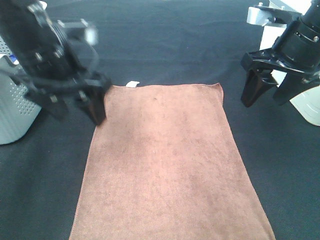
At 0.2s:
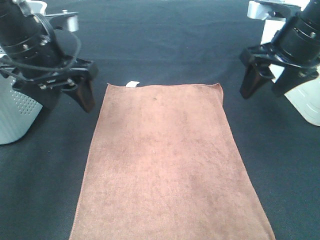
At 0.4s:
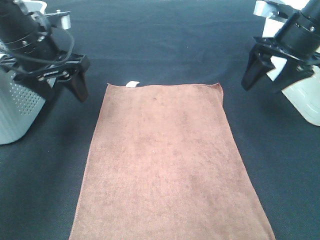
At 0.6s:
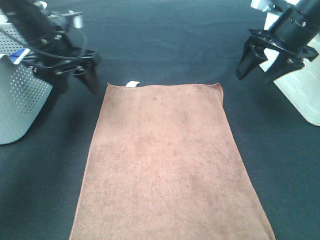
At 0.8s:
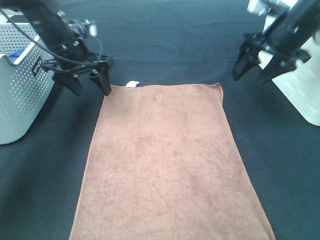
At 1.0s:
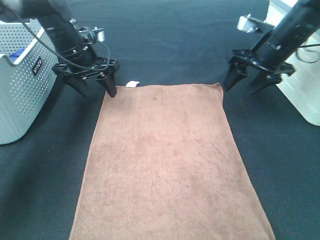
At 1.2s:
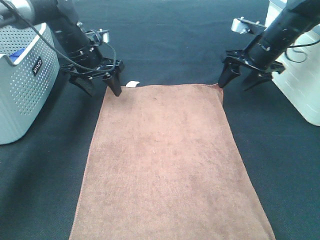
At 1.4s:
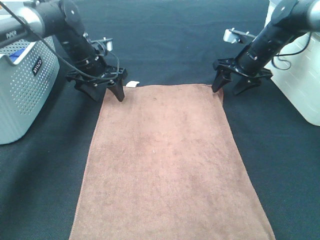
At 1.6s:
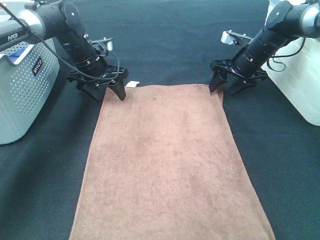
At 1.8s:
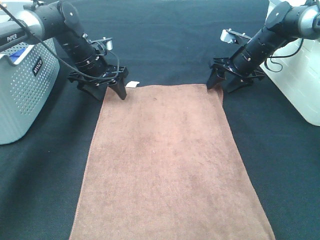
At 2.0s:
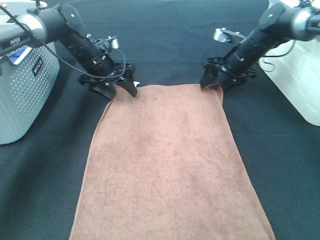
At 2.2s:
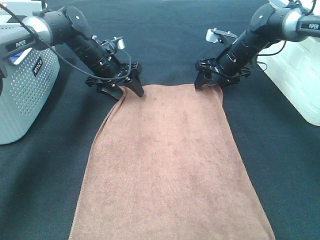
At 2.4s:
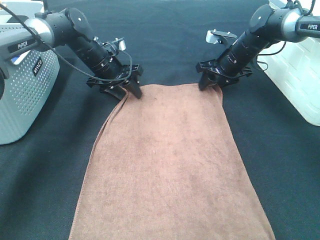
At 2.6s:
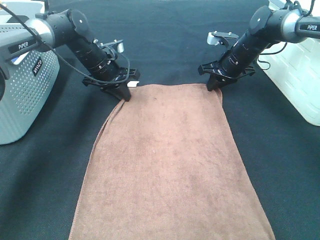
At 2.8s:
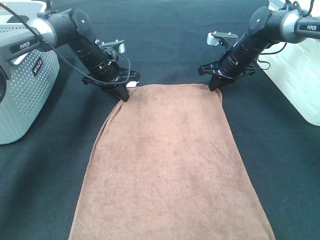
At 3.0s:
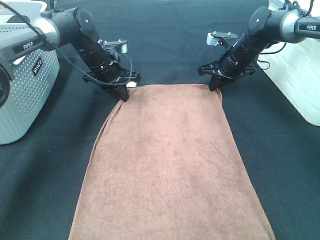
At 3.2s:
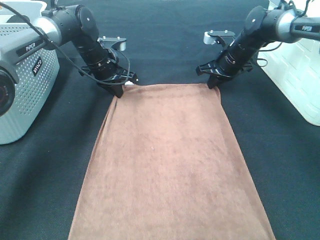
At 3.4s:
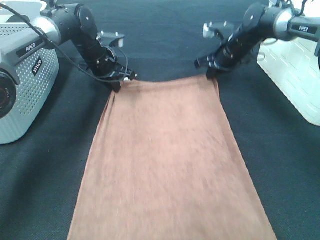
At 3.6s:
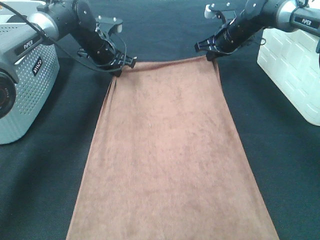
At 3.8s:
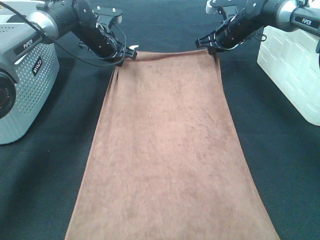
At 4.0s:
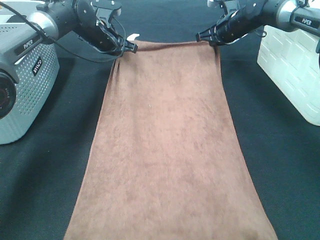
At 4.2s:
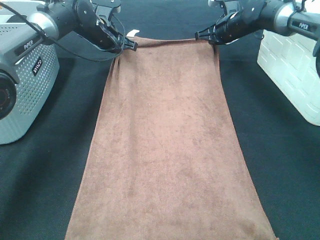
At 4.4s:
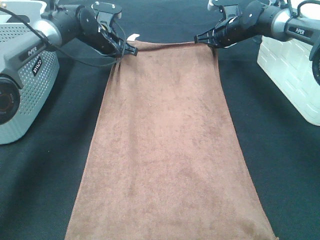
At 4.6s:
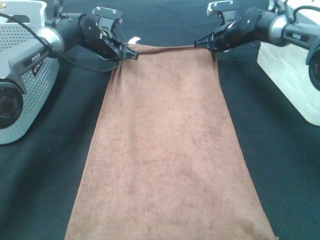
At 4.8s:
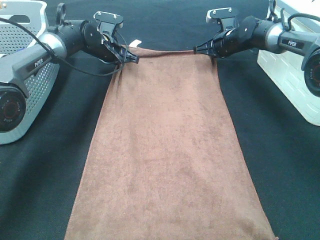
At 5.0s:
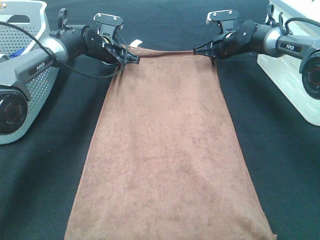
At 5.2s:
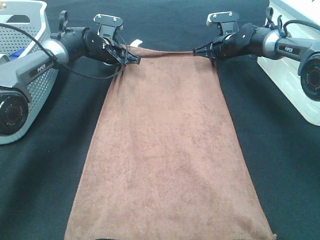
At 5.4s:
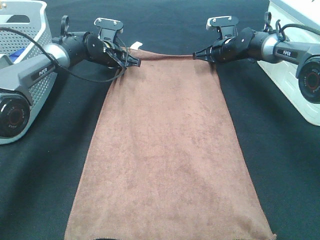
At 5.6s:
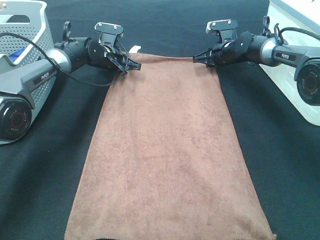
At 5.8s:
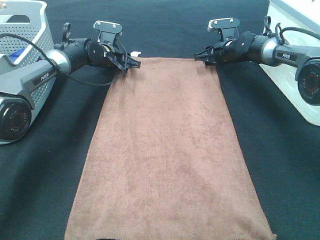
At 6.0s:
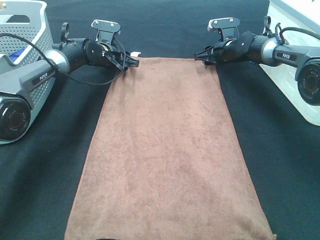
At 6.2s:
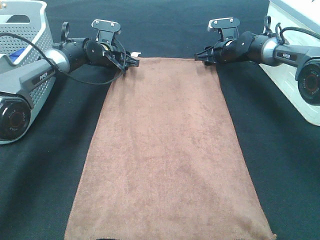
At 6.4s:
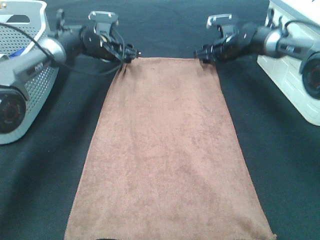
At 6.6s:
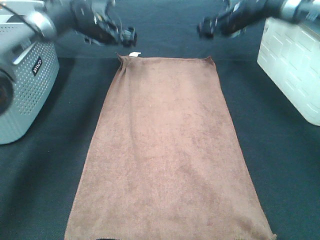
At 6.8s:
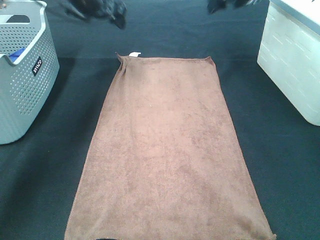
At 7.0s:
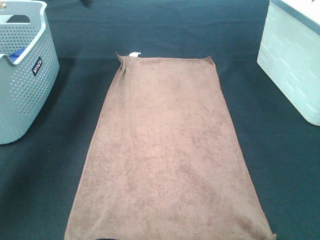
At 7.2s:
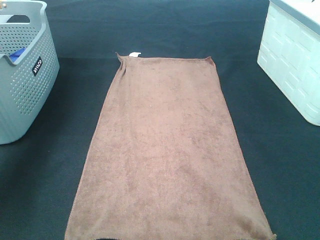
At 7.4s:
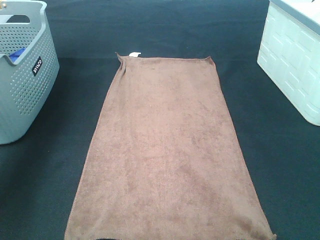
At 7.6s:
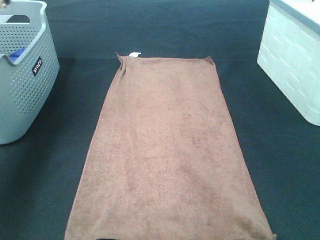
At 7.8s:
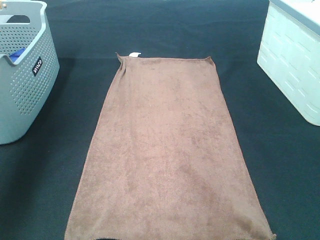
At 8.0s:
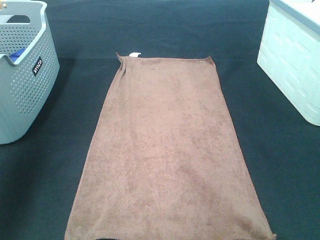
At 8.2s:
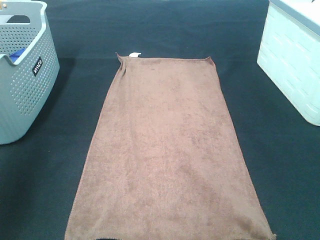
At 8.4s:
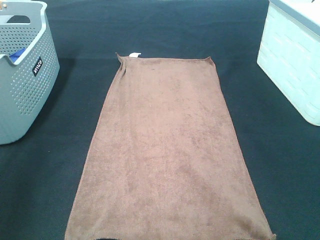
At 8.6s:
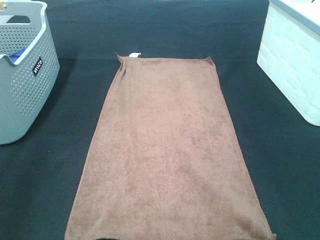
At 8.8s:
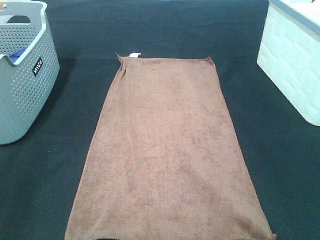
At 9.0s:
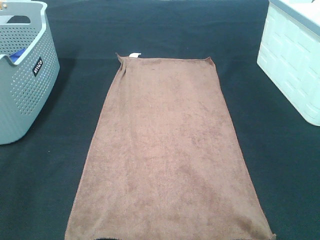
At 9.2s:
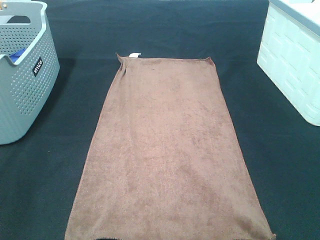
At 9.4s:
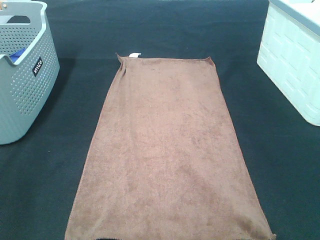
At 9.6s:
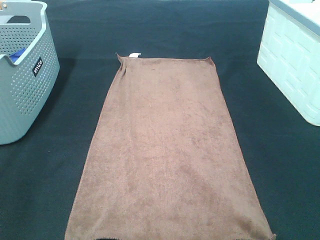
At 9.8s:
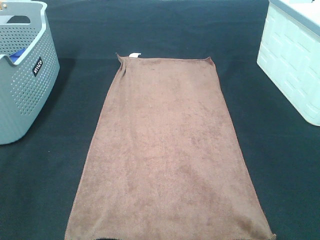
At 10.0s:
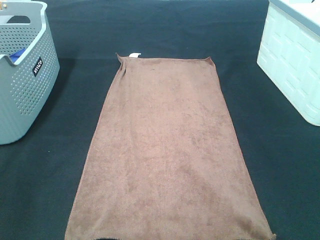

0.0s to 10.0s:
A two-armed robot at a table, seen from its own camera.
Task of the whole recording: Remove the towel and place it.
0.0s to 1.4s: The grippers both shift forward and downward by some 25 cm.
1.4s to 2.8s: The right gripper moves roughly 5 cm, and closes its fingers. Meanwhile the left gripper closes.
2.8s to 4.2s: The grippers both shift forward and upward by approximately 10 cm.
4.2s to 5.8s: The two grippers go roughly 5 cm downward. The left gripper opens its fingers. The right gripper opens its fingers.
5.8s to 7.2s: The left gripper heads upward and to the left, covering approximately 35 cm, and opens its fingers. The right gripper heads upward and backward, covering some 35 cm.
7.2s to 8.6s: The left gripper moves backward, about 50 cm.

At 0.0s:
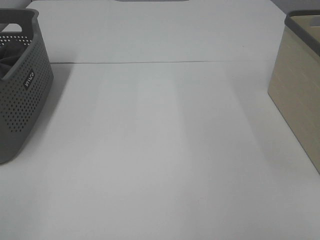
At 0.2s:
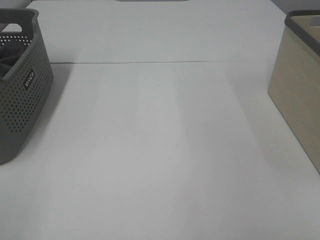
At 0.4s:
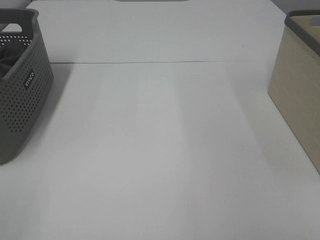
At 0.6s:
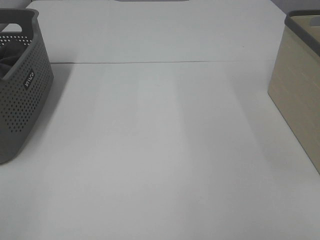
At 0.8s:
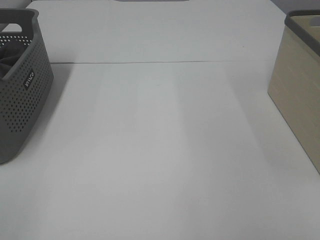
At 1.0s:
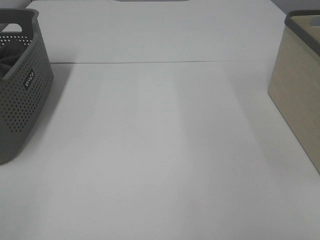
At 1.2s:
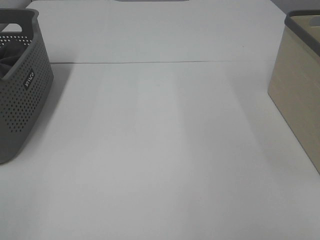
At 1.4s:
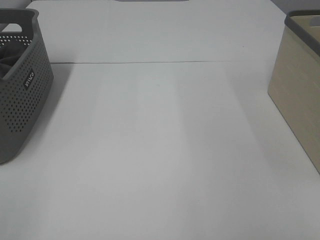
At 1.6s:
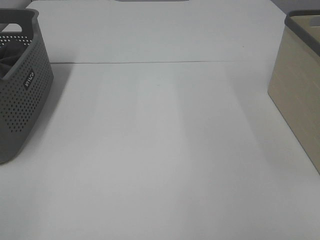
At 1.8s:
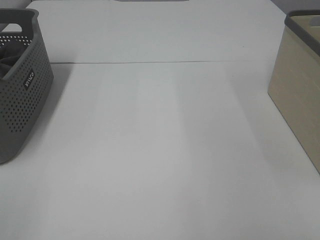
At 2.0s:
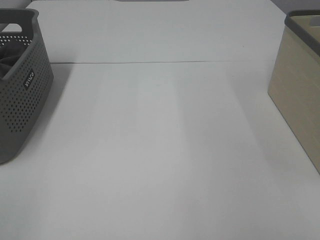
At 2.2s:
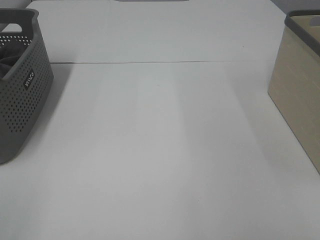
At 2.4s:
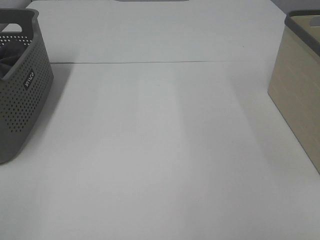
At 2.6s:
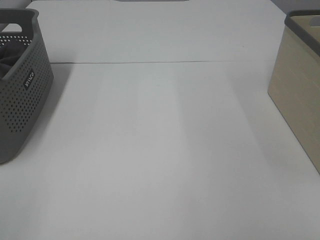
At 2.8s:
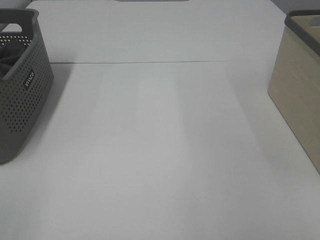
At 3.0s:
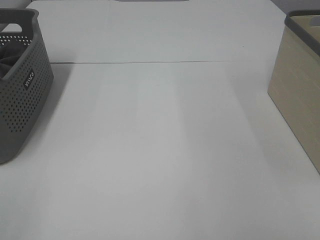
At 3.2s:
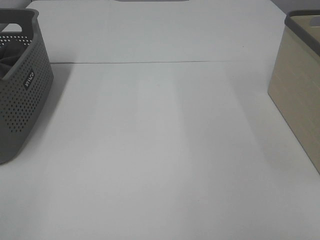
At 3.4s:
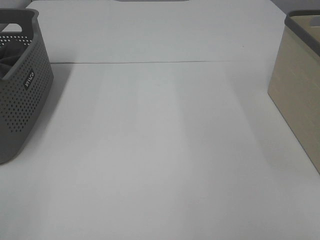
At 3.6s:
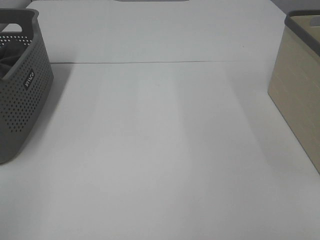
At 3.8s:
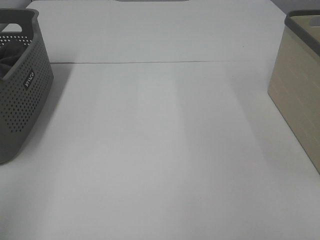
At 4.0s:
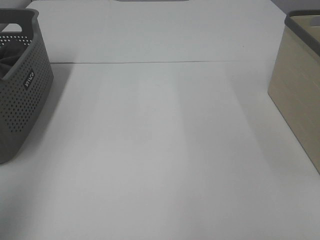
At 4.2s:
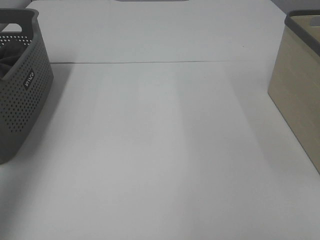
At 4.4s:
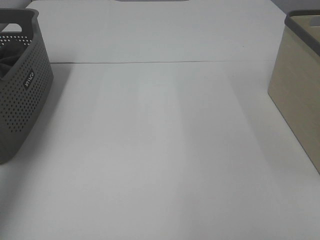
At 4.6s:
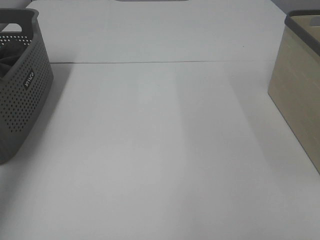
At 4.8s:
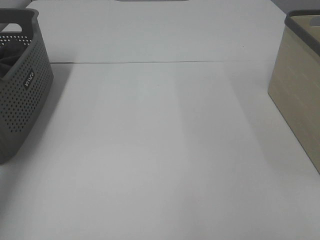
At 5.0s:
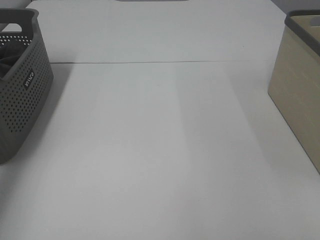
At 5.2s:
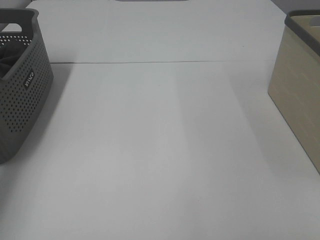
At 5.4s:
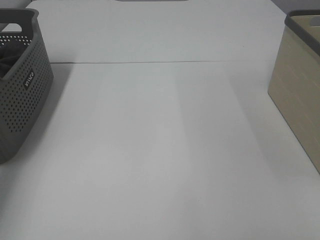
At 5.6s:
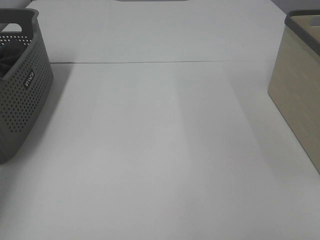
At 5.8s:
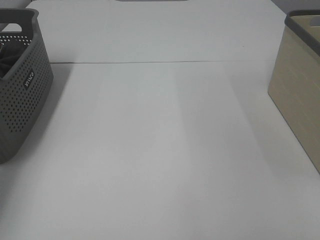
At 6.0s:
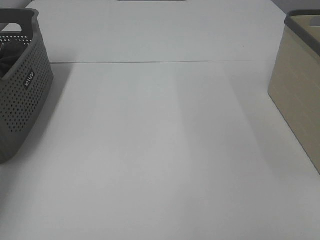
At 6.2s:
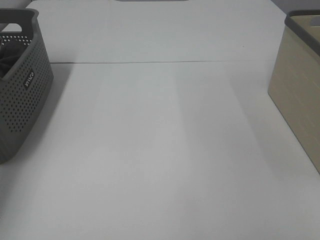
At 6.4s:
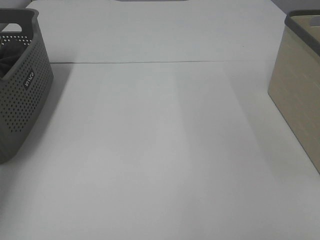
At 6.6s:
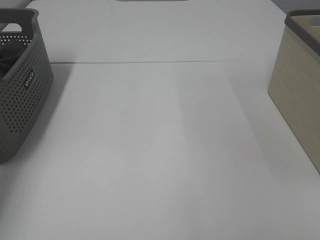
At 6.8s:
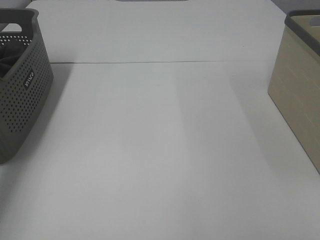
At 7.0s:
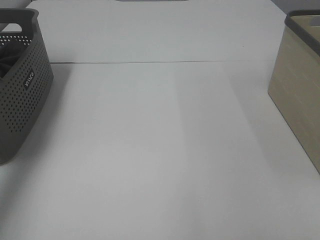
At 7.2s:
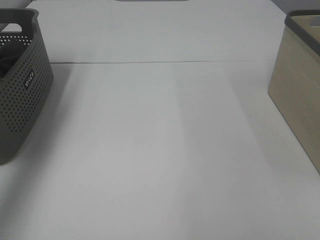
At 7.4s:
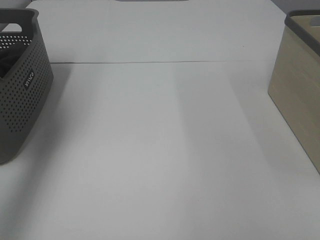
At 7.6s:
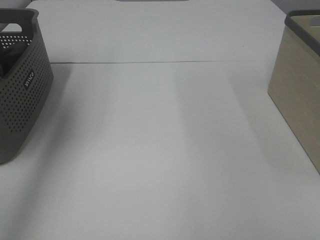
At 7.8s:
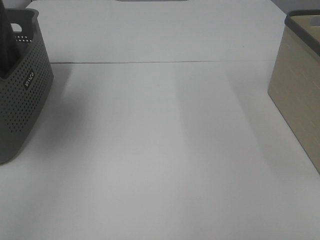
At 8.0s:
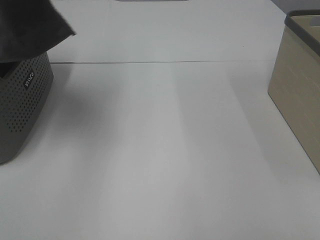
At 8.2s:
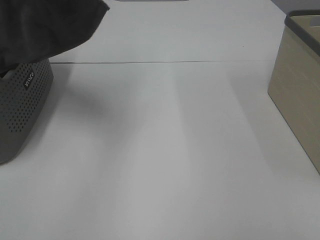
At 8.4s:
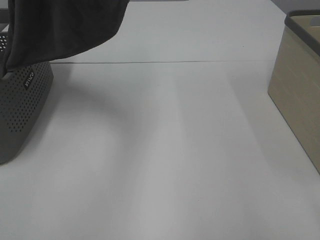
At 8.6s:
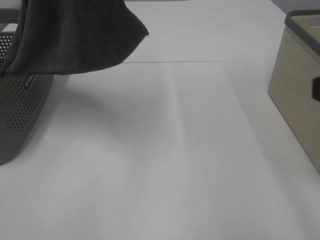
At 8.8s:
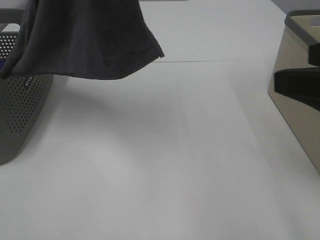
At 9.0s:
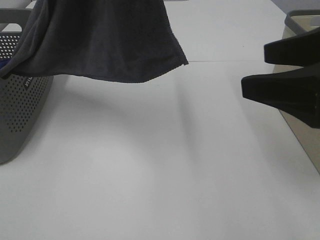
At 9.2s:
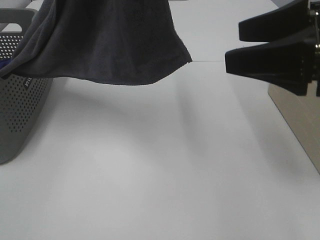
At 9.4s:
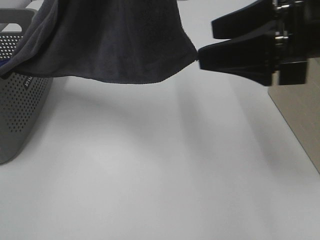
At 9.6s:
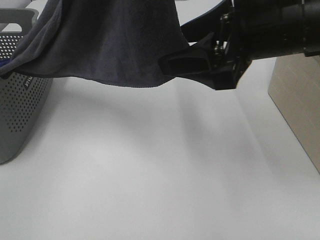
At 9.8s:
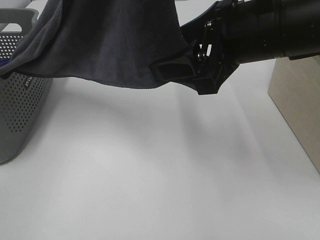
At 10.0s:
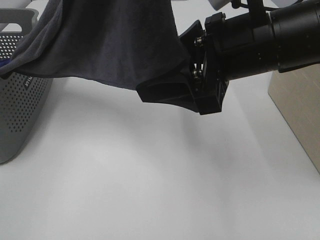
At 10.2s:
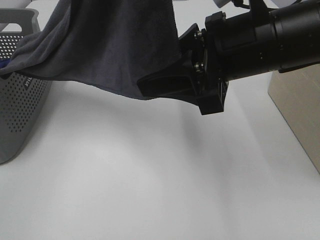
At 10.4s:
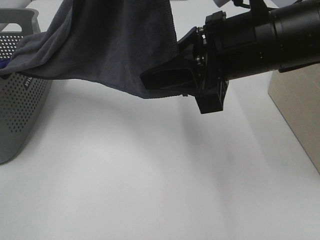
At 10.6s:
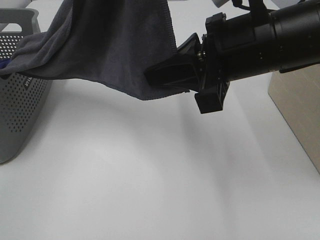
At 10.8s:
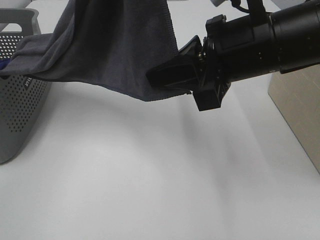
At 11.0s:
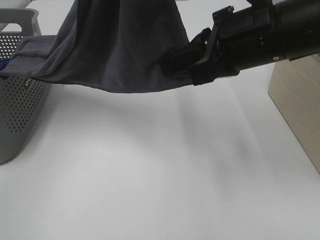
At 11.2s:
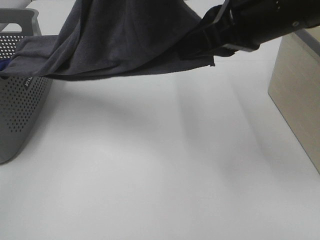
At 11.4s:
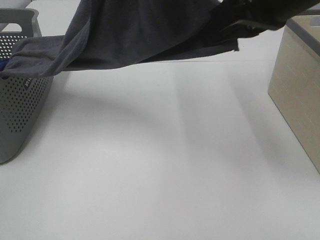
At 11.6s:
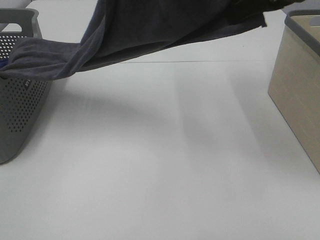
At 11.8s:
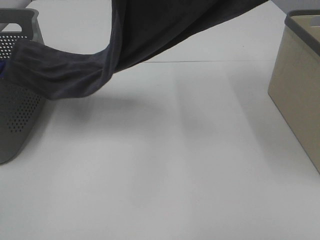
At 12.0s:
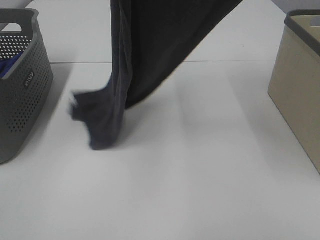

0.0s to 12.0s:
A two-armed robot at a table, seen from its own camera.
Task of the whole recording: Remove the towel and place it.
Step, 7.4s to 11.4s: Right hand: grab a corner of the grey towel and straighten it.
0.0s to 3.0s: Both grippers stay put.
3.0s to 4.4s: The left gripper heads forward, covering roughly 30 cm.
4.4s to 6.0s: The left gripper heads downward and forward, covering some 25 cm, and closes its fingers.
6.0s to 7.6s: The left gripper travels upward, to the right and backward by roughly 30 cm, and closes.
7.6s to 9.0s: The right gripper travels forward by about 15 cm, while the left gripper heads to the right and backward, covering some 20 cm.
9.0s to 10.4s: The right gripper travels to the left and forward by some 15 cm, and closes its fingers.
10.4s to 12.0s: The left gripper changes place by approximately 5 cm. The right gripper heads upward, covering some 15 cm, and closes up.
